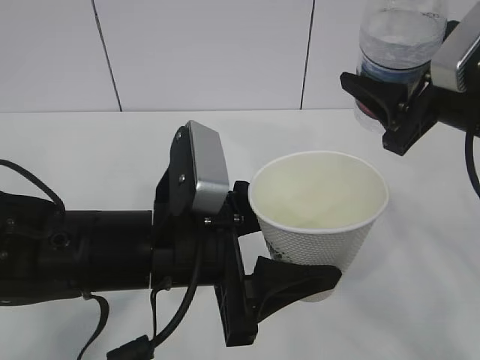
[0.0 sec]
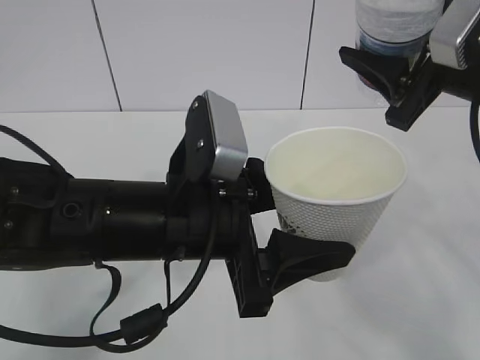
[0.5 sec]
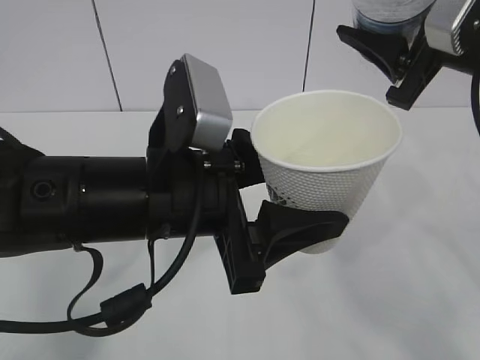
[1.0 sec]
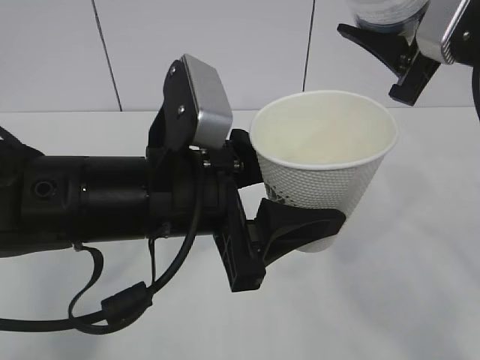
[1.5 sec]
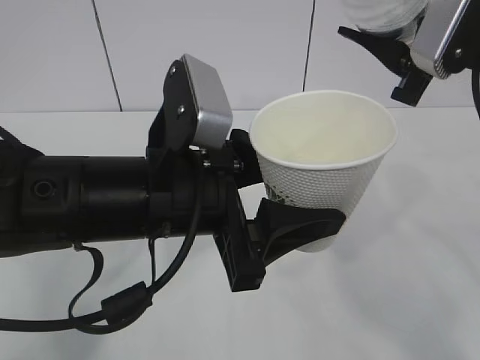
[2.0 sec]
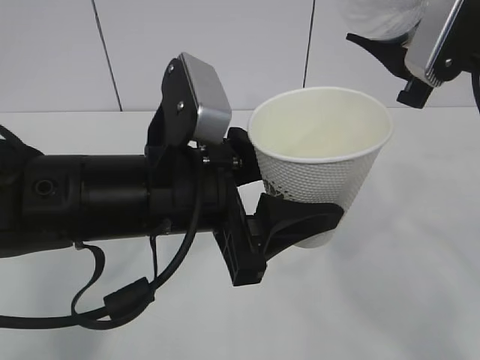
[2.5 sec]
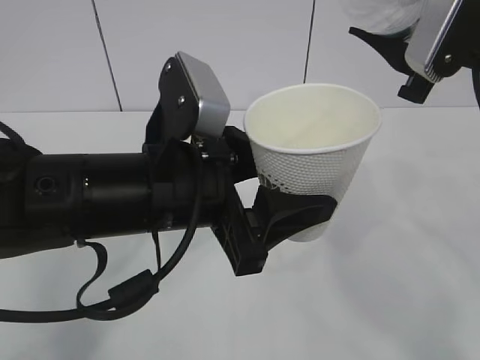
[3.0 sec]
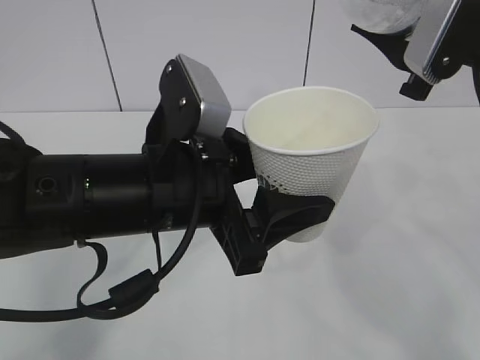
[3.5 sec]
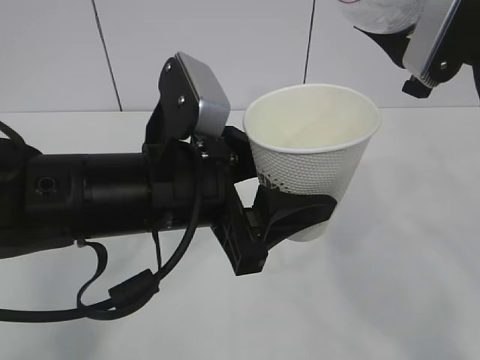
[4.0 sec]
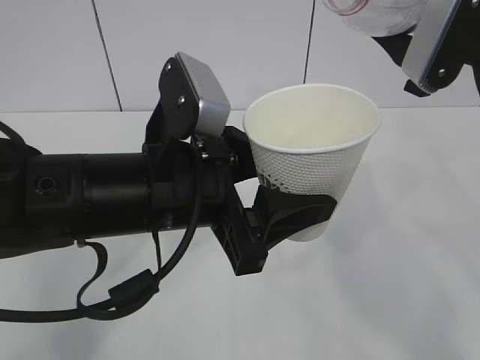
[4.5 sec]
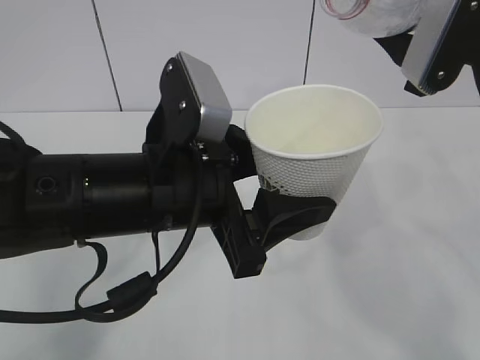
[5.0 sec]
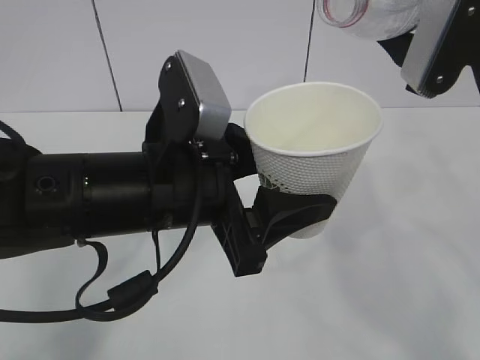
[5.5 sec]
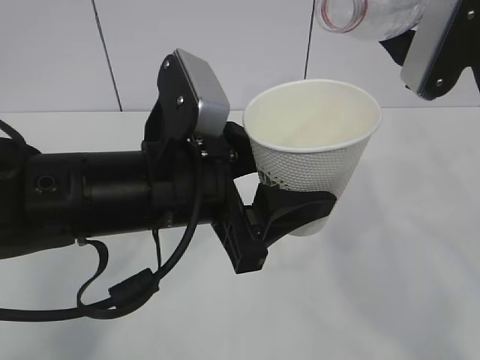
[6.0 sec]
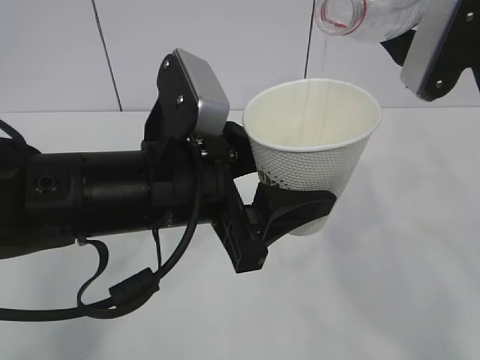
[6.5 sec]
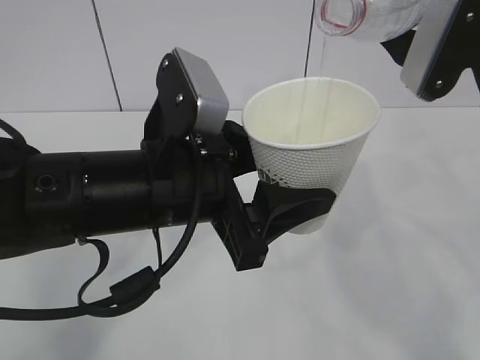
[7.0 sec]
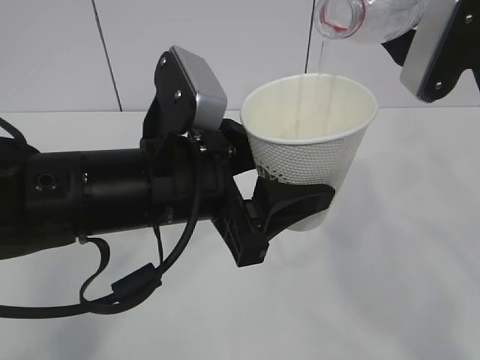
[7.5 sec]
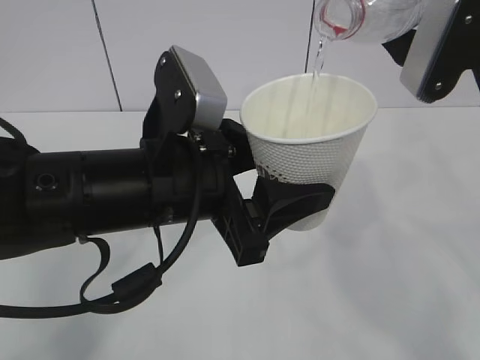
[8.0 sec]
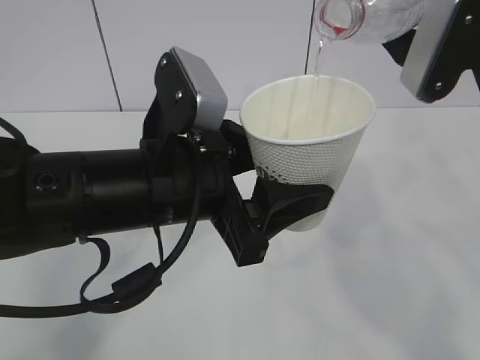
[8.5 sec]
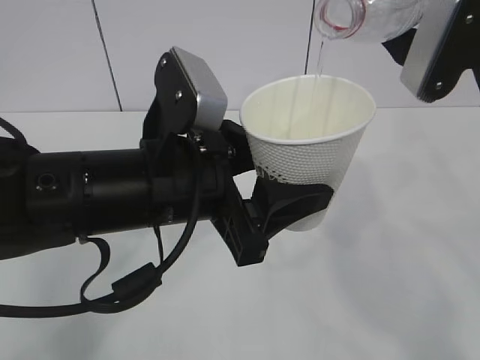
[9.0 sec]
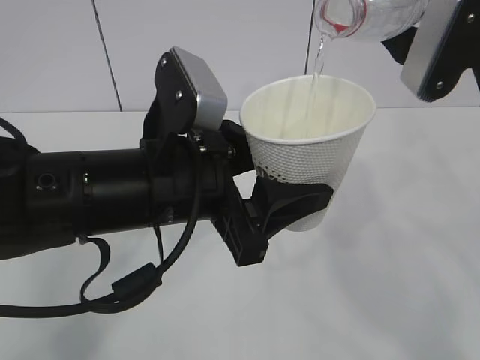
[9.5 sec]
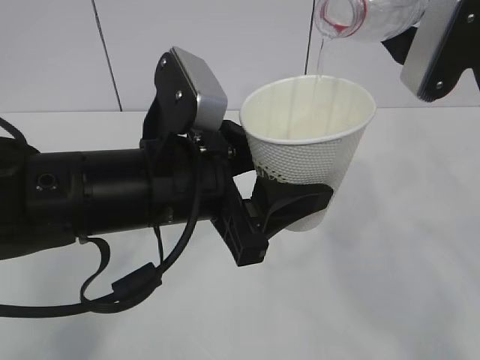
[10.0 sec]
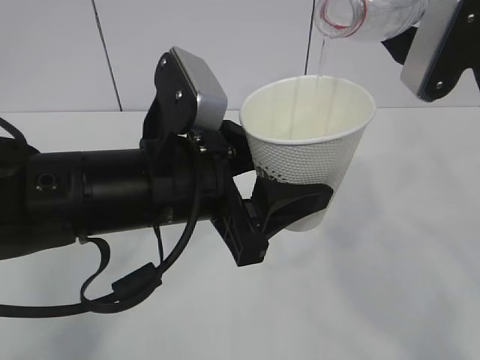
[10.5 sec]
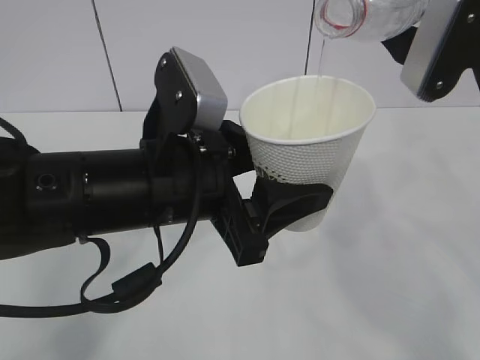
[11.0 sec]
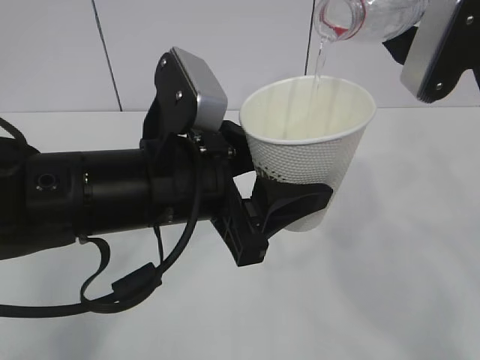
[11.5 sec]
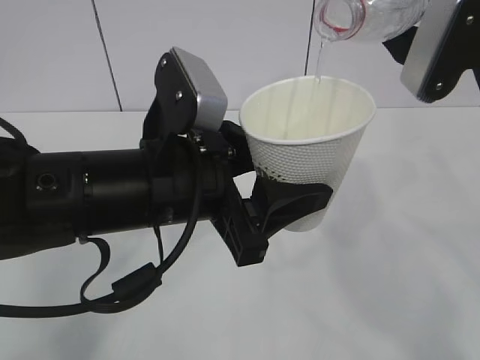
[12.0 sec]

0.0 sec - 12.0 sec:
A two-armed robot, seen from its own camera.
0.0 sec - 2.0 sec: The right gripper moves upward, roughly 5 cm.
2.0 sec - 4.0 sec: The grippers move only a little.
4.0 sec - 6.0 sec: The grippers stay close to where they were, moving slightly.
6.0 sec - 12.0 sec: The two grippers keep their place.

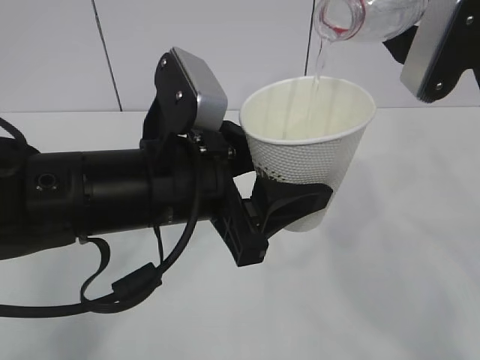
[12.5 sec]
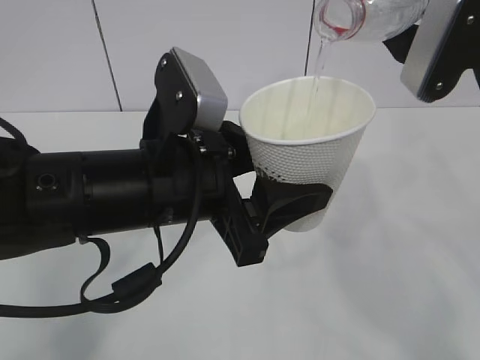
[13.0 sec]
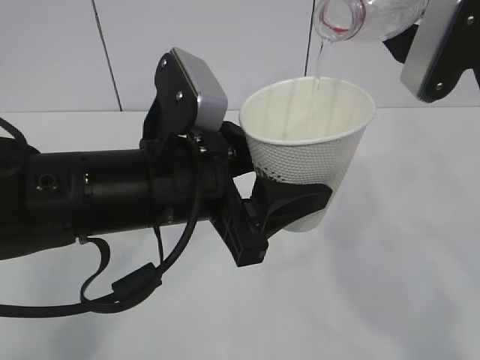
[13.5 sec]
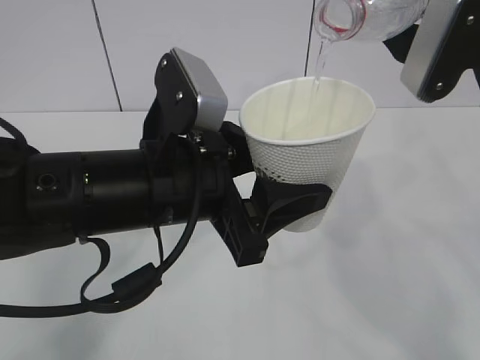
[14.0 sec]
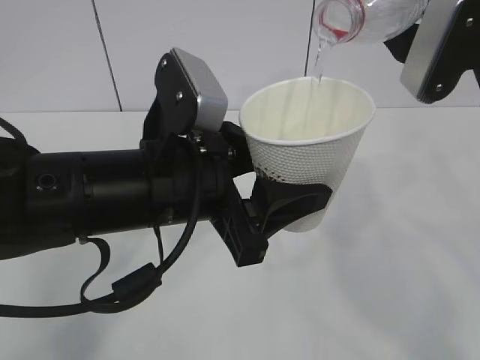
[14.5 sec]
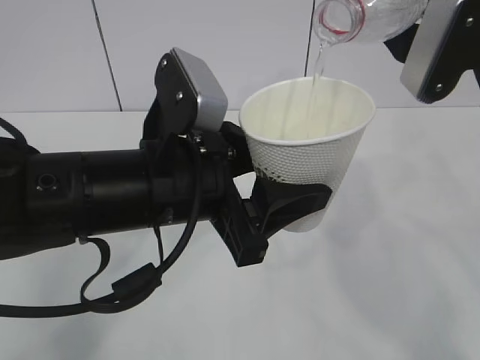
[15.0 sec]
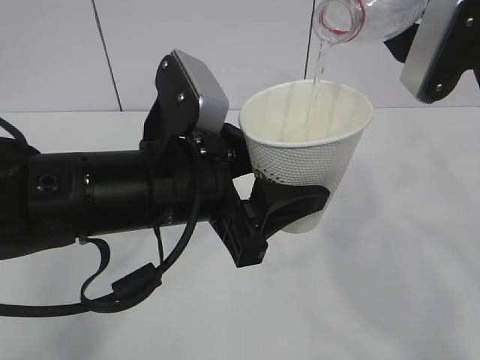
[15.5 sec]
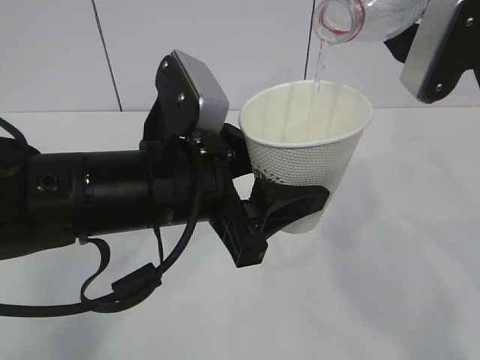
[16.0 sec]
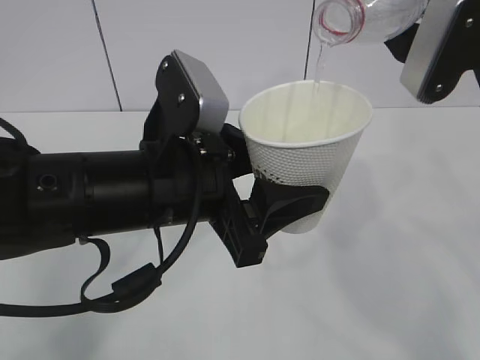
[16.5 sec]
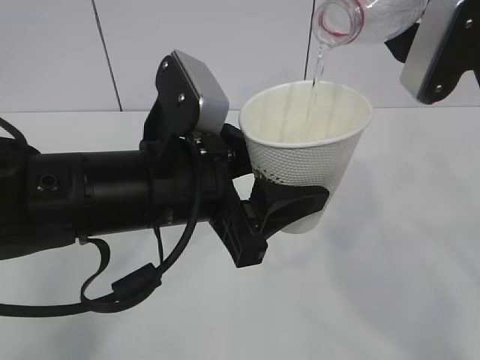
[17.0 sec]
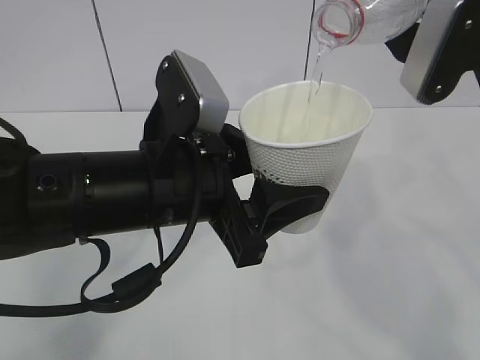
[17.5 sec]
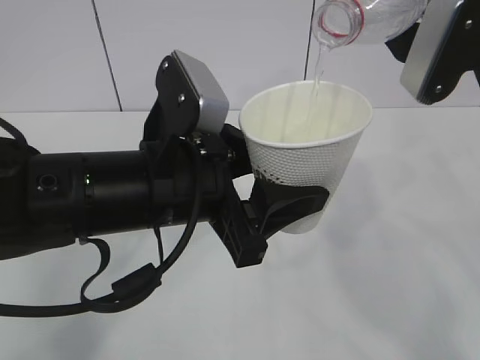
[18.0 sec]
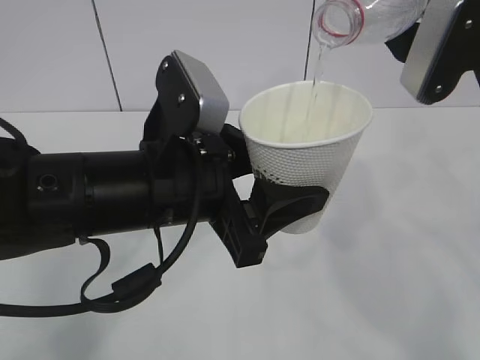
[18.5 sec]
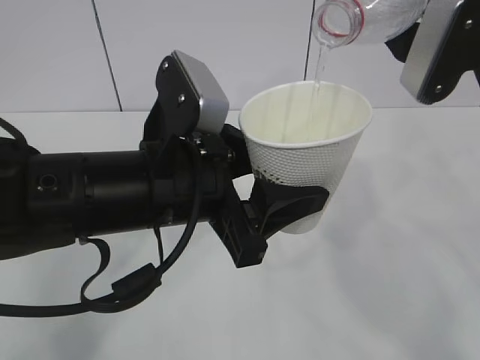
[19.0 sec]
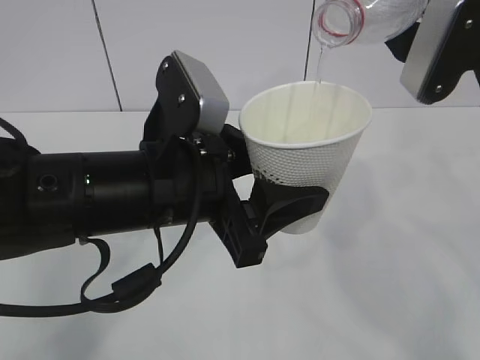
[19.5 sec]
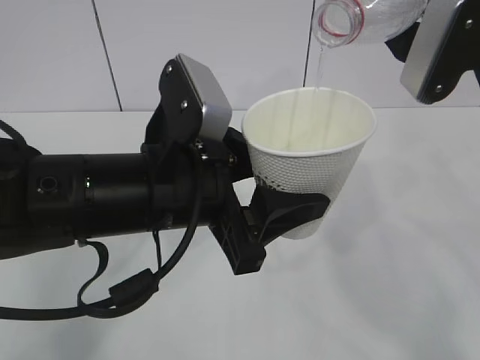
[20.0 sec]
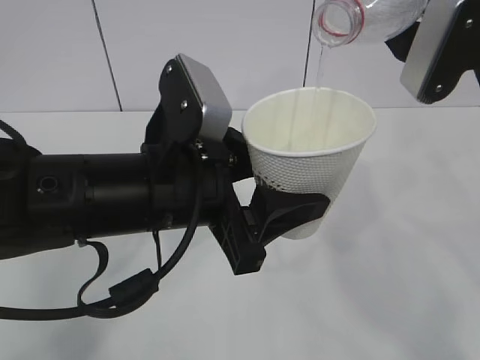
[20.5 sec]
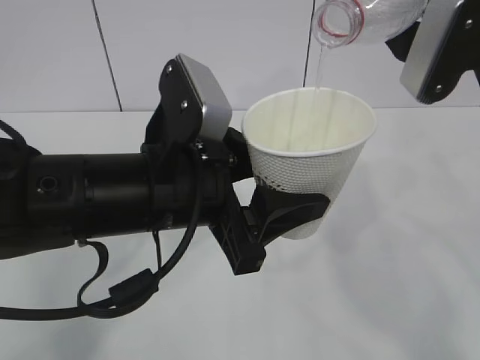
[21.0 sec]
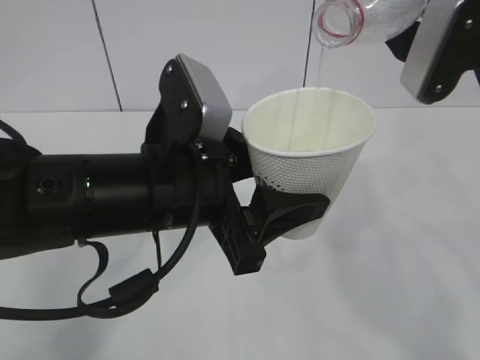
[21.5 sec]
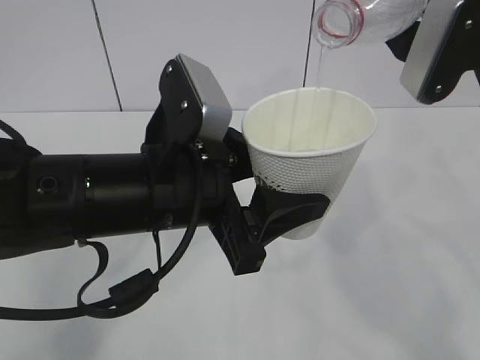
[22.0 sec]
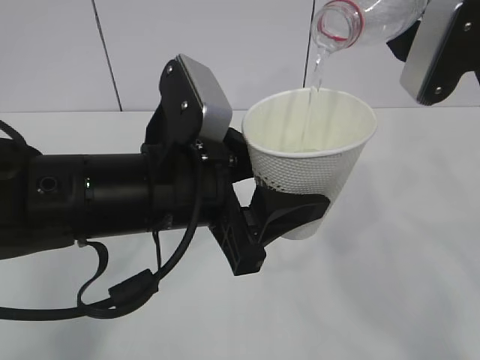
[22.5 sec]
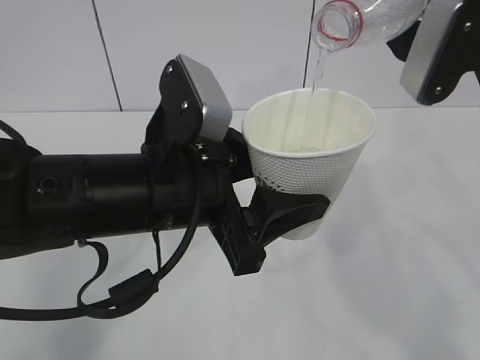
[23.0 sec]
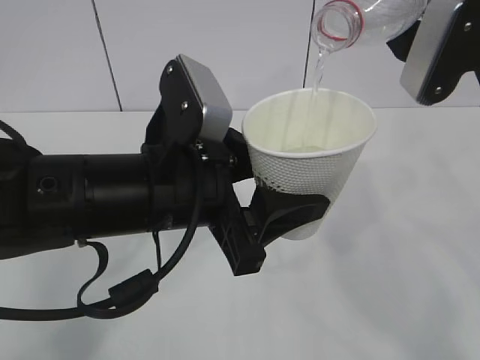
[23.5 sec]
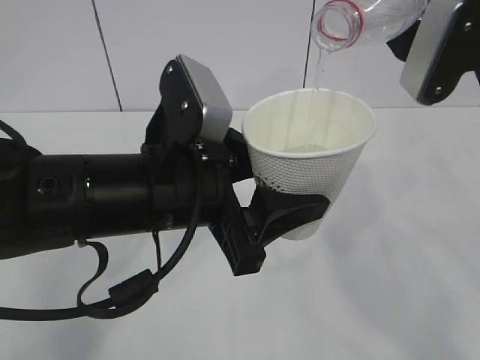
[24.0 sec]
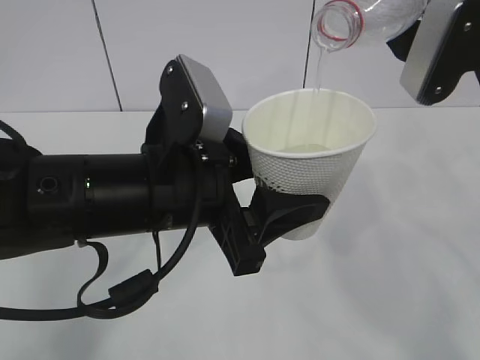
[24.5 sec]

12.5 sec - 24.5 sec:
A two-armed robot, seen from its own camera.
12.5 sec - 24.5 sec: Both grippers stay put.

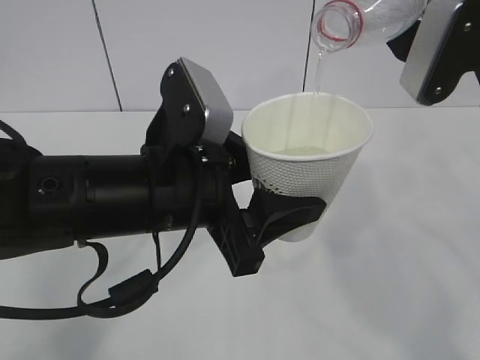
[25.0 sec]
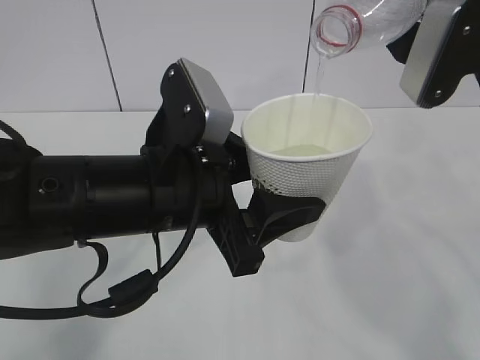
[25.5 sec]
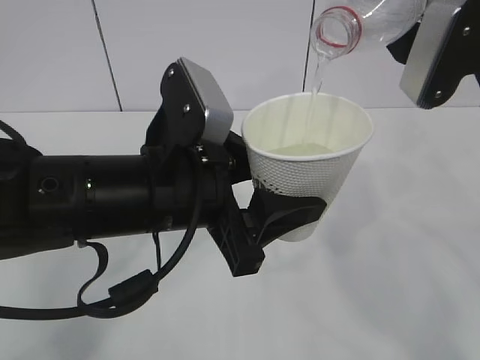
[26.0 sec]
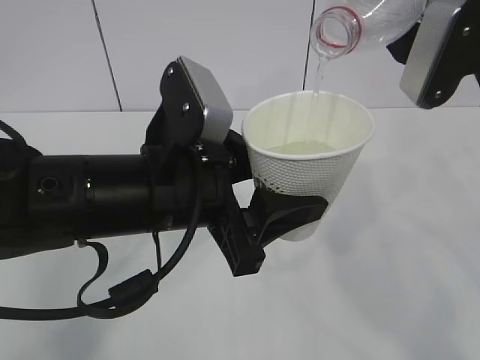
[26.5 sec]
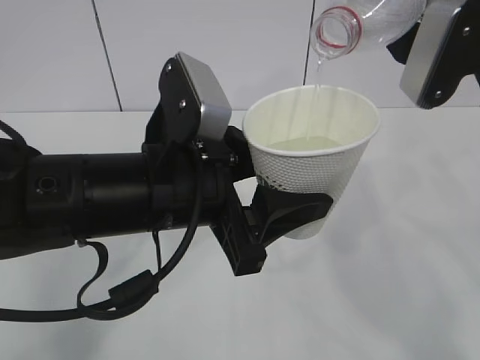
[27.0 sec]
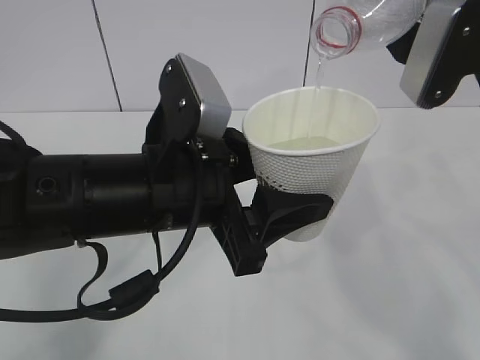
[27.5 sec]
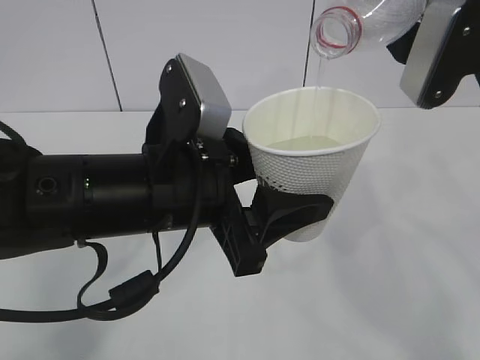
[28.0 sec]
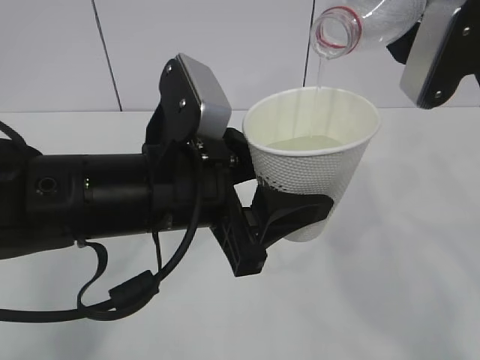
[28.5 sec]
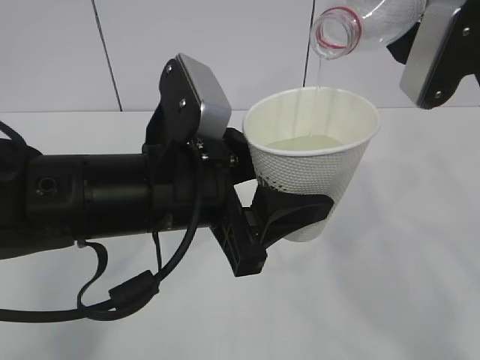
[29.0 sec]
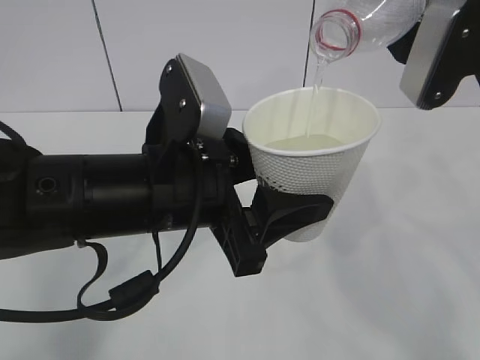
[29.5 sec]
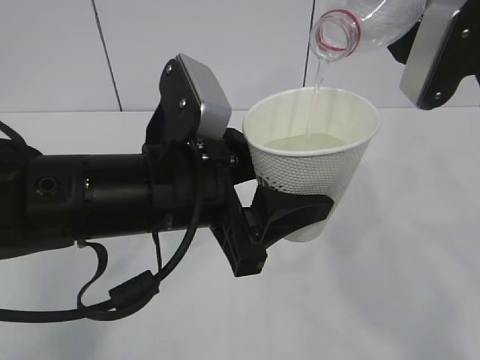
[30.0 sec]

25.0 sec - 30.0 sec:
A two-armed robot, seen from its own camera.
25.0 sec - 30.0 sec: Neither gripper changes place.
